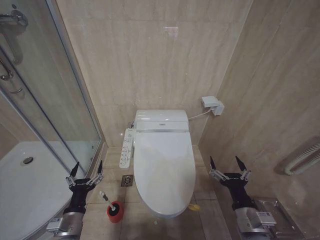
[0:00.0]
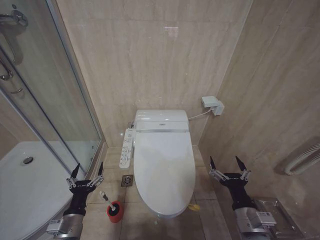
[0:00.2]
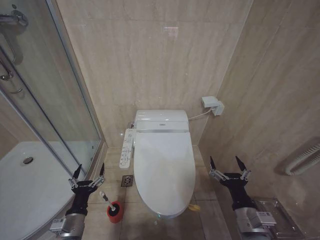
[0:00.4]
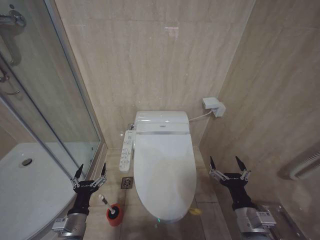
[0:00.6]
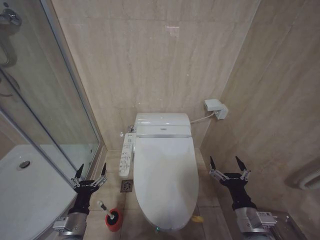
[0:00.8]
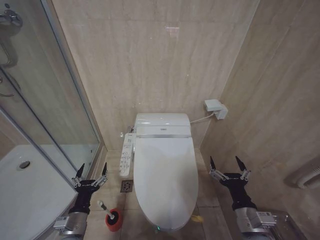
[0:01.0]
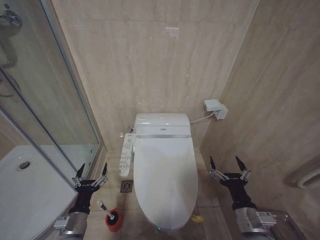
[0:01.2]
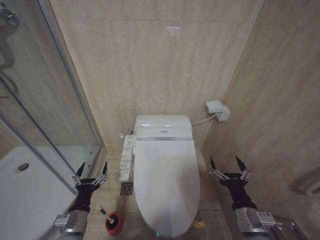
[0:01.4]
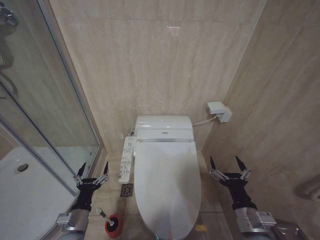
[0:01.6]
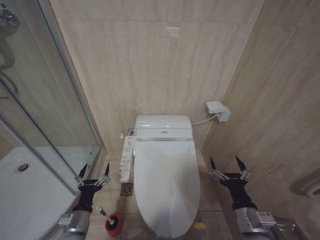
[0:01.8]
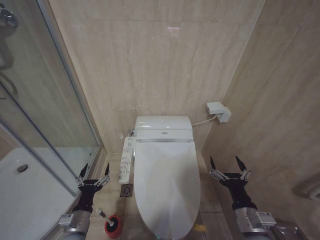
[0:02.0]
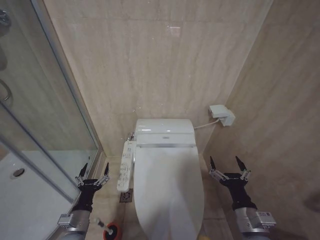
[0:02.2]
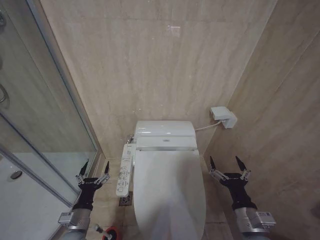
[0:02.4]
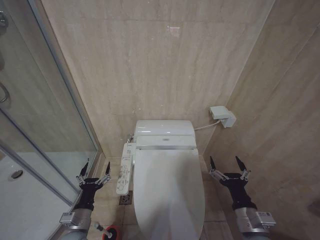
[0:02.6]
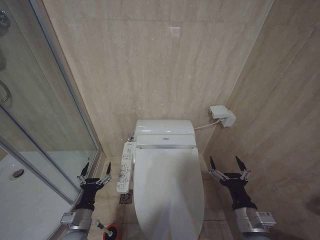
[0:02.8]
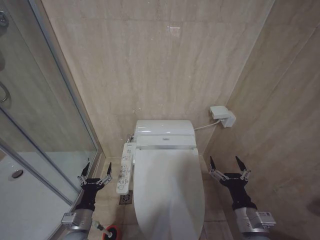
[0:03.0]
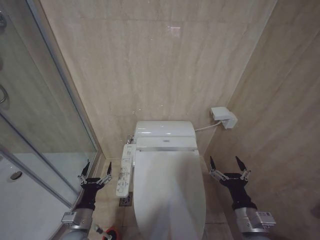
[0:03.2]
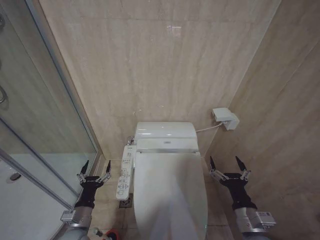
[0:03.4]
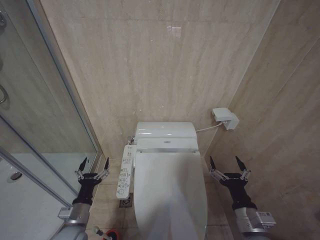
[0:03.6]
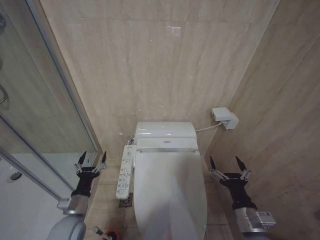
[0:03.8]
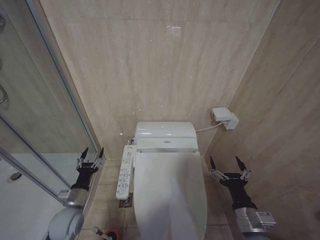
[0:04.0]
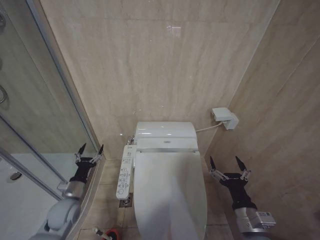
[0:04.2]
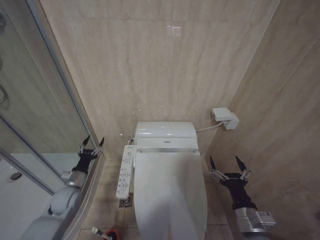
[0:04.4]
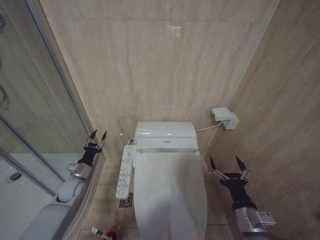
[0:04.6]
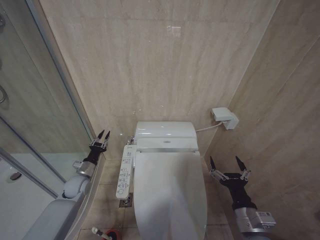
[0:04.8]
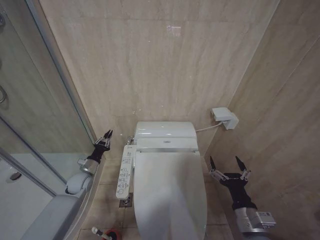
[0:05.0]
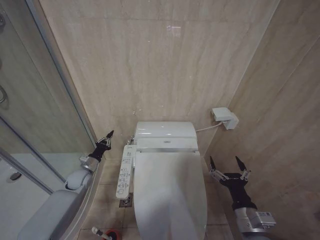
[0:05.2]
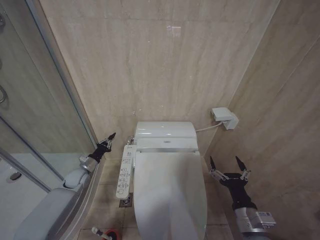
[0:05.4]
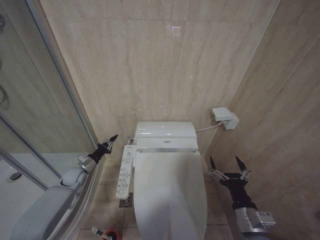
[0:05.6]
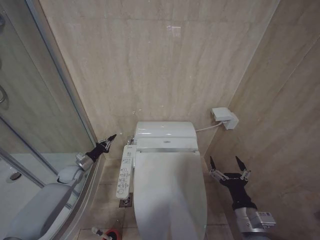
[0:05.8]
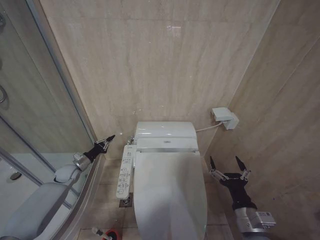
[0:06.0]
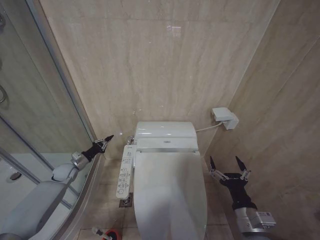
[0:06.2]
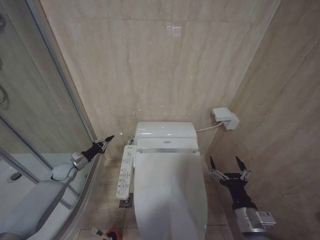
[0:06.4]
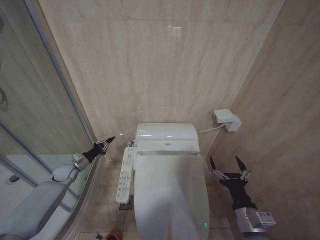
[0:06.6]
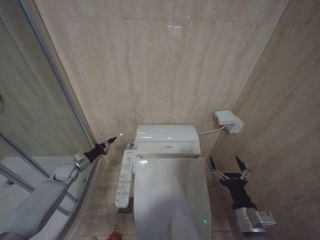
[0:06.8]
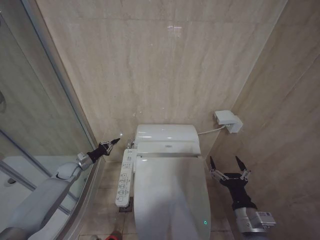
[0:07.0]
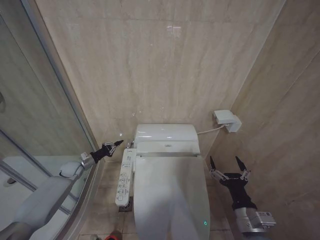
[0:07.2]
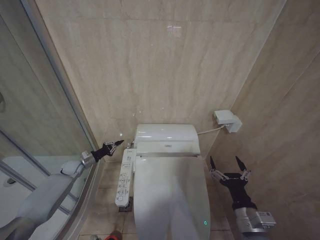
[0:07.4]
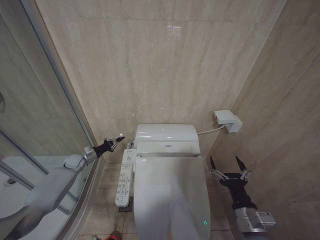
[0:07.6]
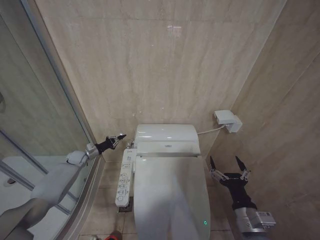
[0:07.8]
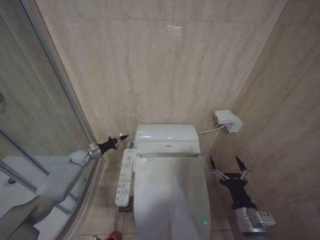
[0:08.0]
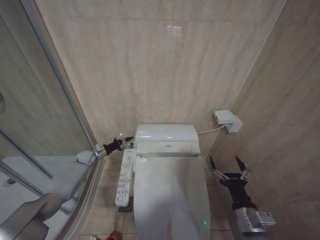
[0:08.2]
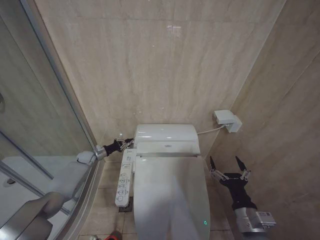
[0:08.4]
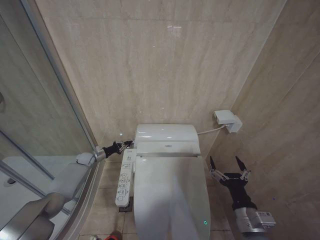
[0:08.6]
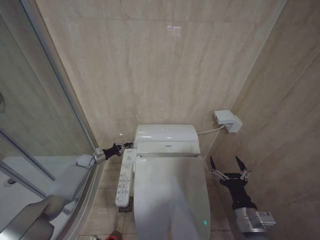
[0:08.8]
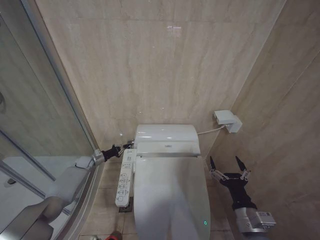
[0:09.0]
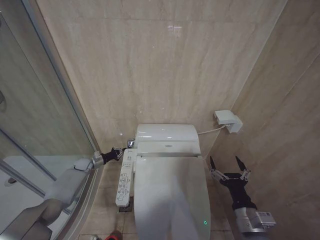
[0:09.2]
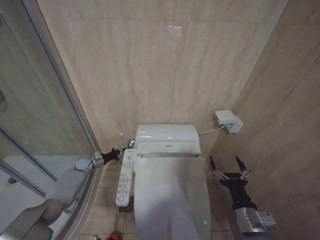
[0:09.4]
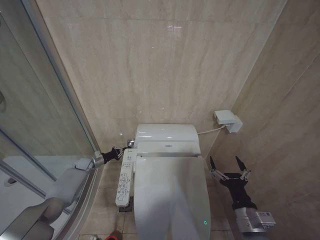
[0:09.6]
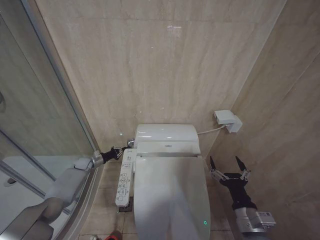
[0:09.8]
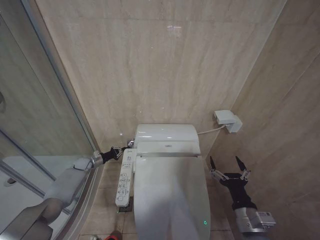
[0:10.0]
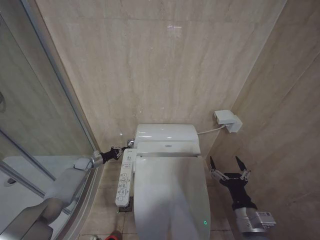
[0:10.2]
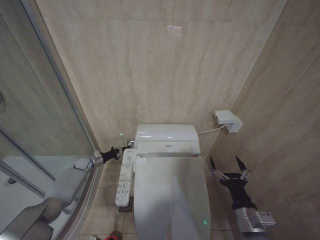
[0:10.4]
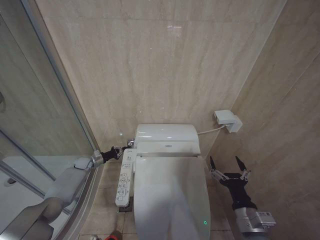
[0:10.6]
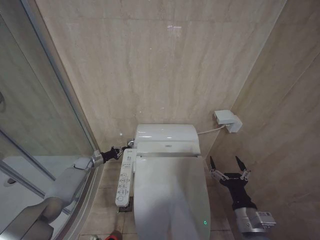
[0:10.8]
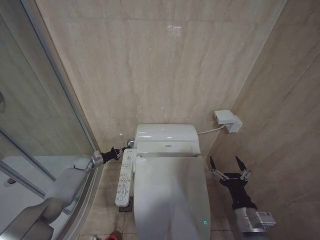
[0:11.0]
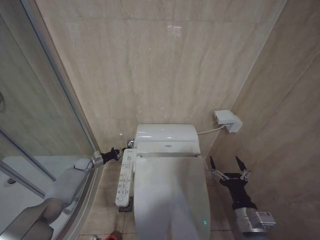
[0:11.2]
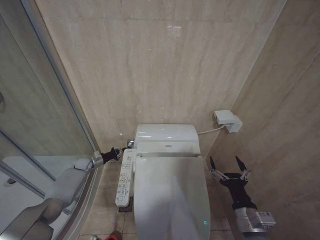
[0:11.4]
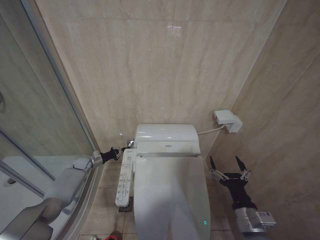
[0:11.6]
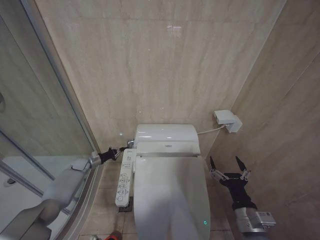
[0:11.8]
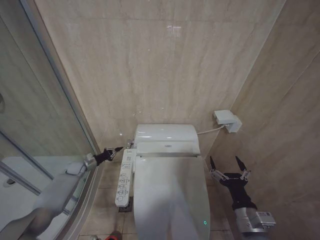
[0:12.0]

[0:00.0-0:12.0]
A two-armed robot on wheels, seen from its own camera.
Task of the whole recording: Open the toilet lid, clean the toilet bowl with a toilet brush, close the toilet lid, and flush.
0:00.0 to 0:03.0: There are only small adjustments of the grippers.
0:03.0 to 0:04.4: The left gripper is displaced forward and to the left by roughly 15 cm.
0:04.4 to 0:06.0: The left gripper is displaced forward and to the left by some 15 cm, and closes its fingers.
0:06.0 to 0:07.6: The left gripper is displaced forward by about 5 cm.
0:07.6 to 0:09.0: The left gripper ends up some 5 cm from where it was.
0:10.4 to 0:12.0: The grippers make only small movements.

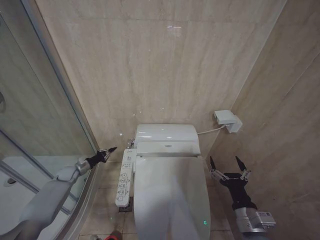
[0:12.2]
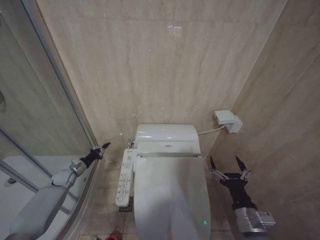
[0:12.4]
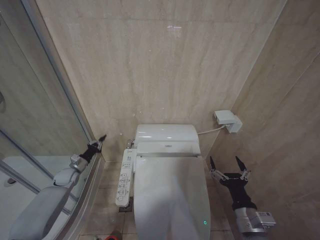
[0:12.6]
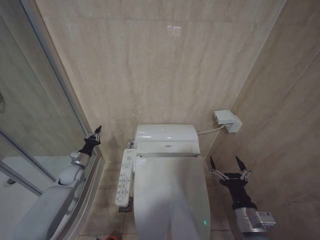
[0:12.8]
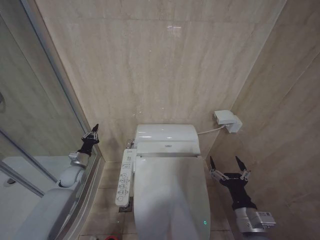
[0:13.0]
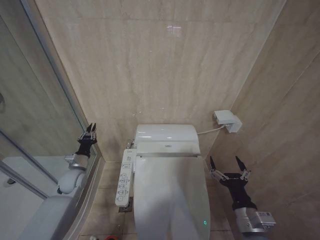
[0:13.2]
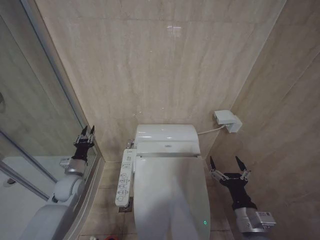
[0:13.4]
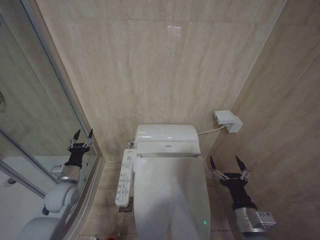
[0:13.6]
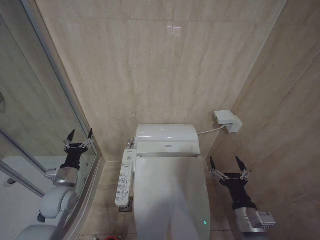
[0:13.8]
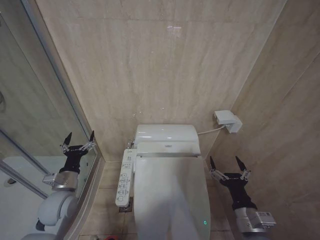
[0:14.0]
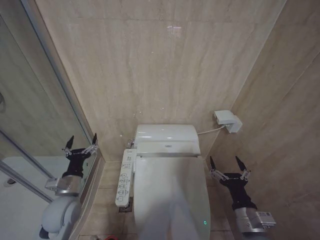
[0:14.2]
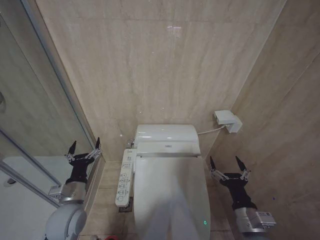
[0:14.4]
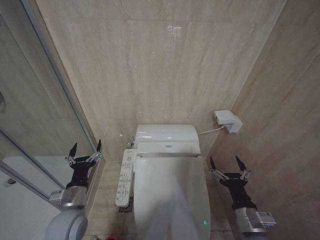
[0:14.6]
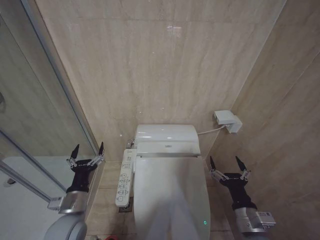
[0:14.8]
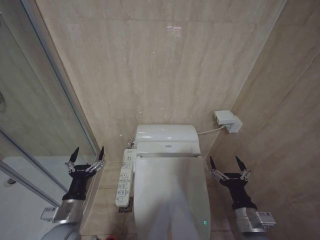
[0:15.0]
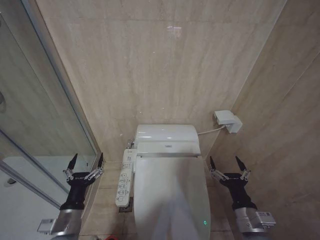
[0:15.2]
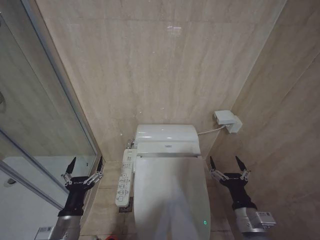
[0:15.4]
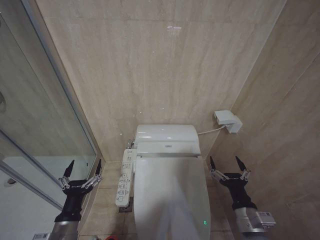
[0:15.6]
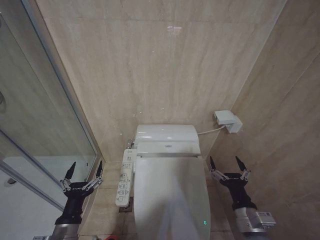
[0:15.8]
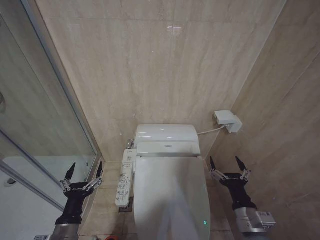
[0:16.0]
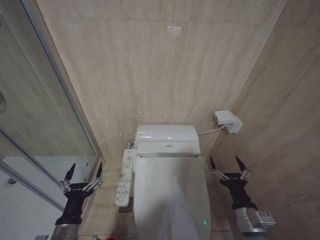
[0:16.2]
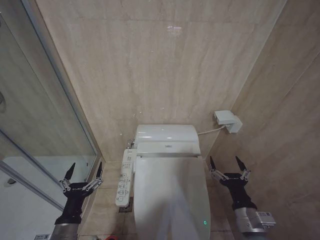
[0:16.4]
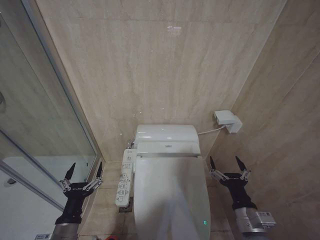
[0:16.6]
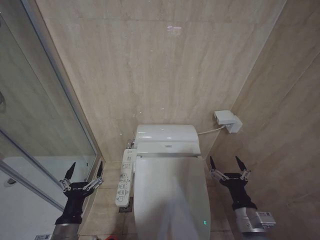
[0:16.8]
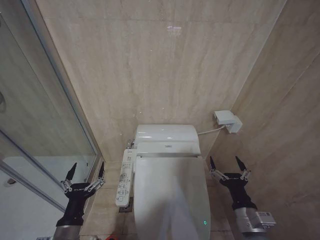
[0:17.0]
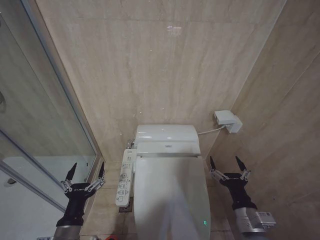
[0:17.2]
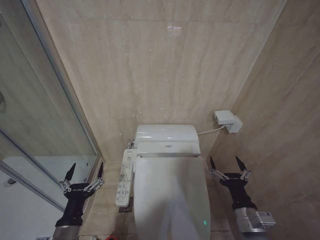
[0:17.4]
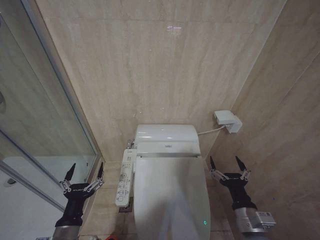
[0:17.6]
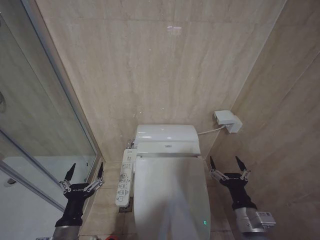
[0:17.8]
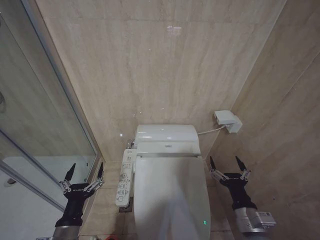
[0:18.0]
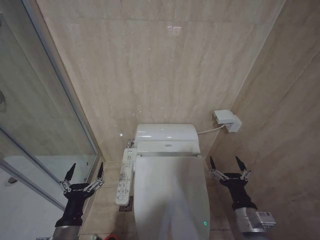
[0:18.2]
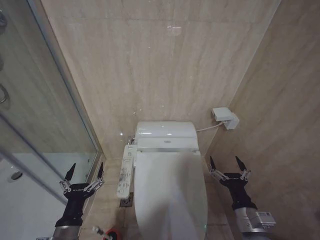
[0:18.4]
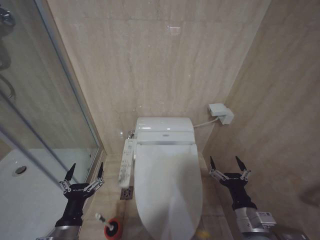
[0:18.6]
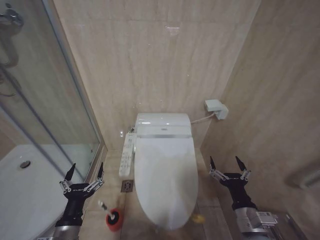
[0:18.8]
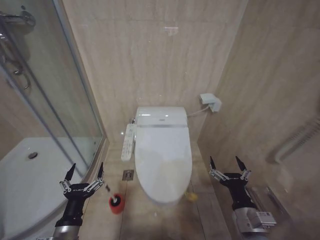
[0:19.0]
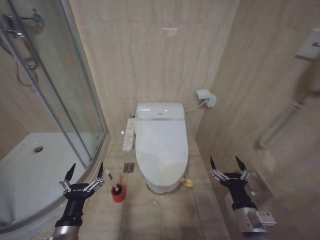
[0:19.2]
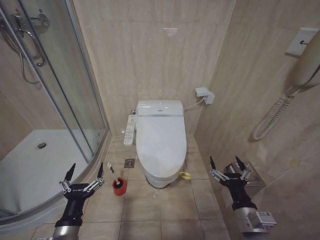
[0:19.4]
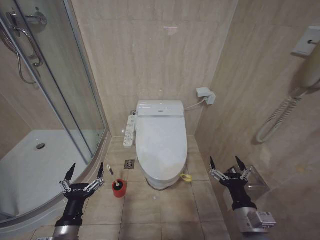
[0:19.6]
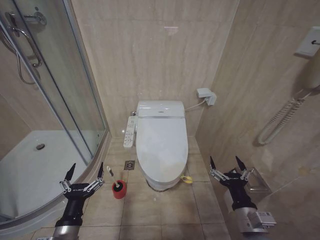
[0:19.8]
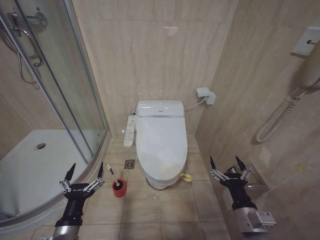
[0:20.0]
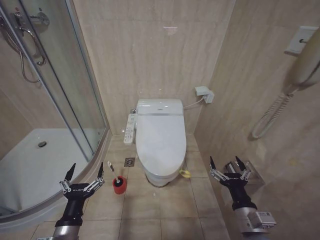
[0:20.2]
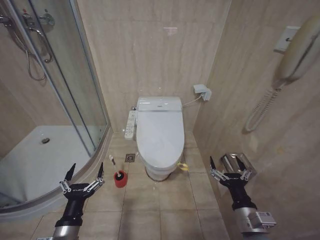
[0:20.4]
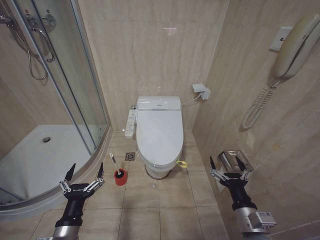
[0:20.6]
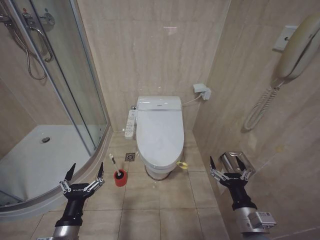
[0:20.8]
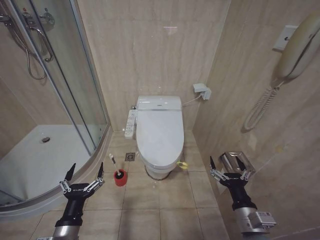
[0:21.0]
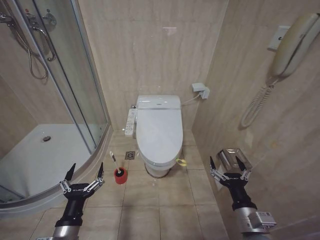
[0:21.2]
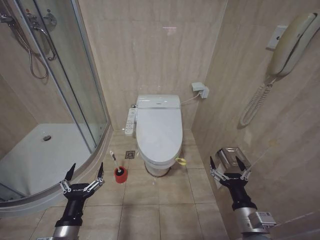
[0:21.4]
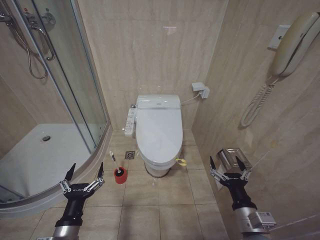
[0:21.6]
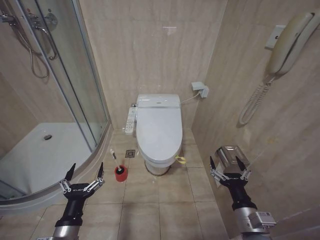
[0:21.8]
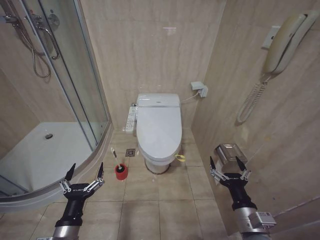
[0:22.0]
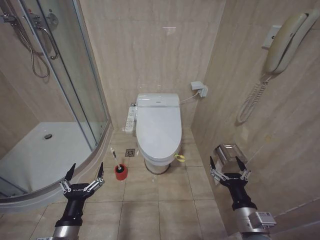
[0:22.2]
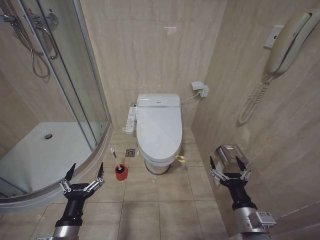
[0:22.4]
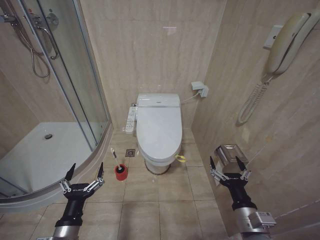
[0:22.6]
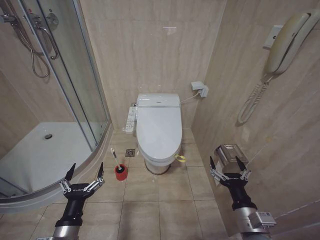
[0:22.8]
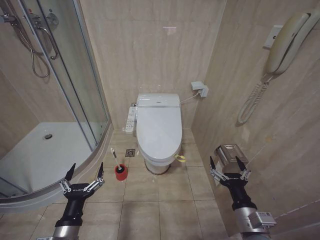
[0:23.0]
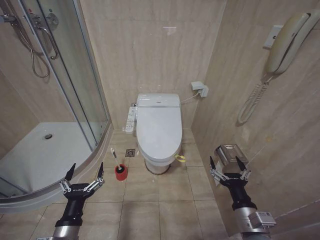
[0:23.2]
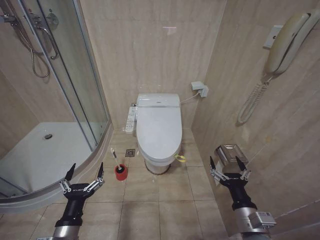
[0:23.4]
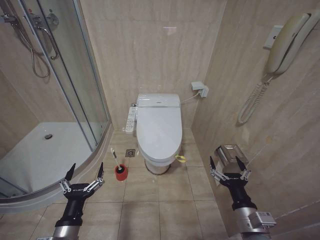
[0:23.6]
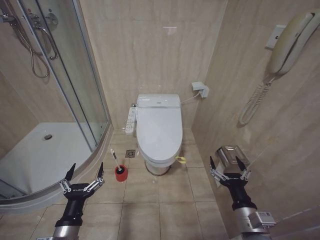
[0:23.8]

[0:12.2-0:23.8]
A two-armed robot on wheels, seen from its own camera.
Task of the whole recording: Open the toilet lid, clean the toilet bowl with a toilet brush, close the toilet lid, and flush.
0:12.2 to 0:13.6: The left gripper heads backward, upward and to the right, covering some 20 cm.
0:13.6 to 0:15.0: The left gripper goes about 15 cm backward and to the right, and opens its fingers.
0:15.0 to 0:16.6: The left gripper heads backward, covering approximately 5 cm.
0:19.4 to 0:23.8: Both grippers stay about where they are.
